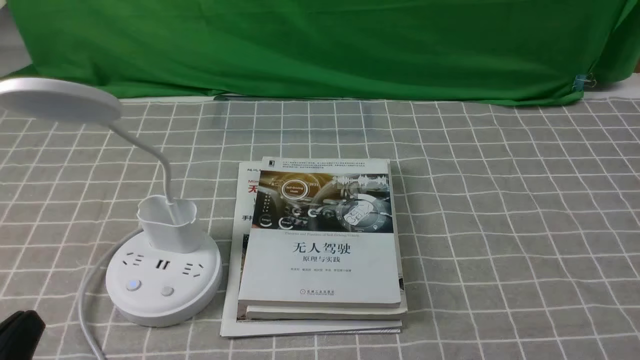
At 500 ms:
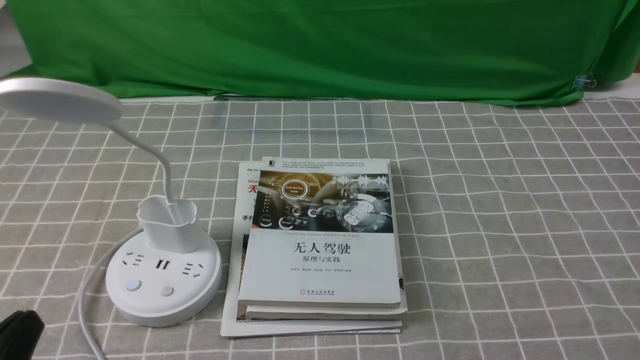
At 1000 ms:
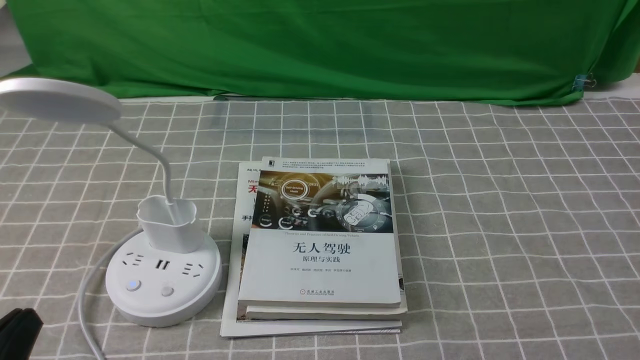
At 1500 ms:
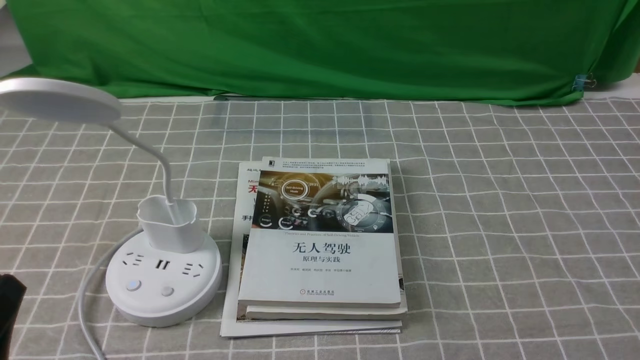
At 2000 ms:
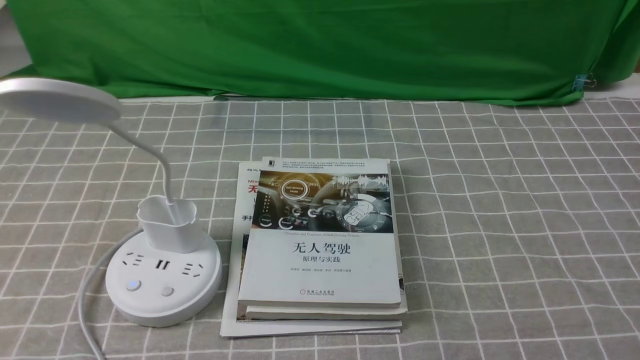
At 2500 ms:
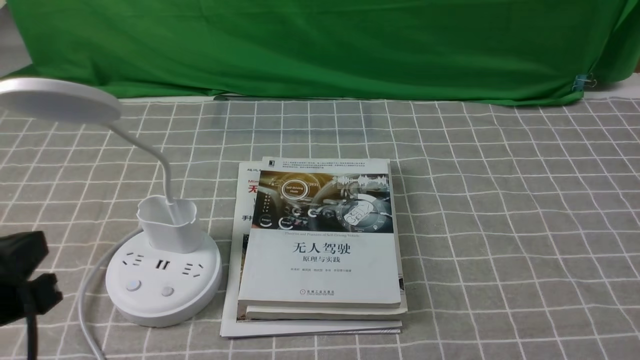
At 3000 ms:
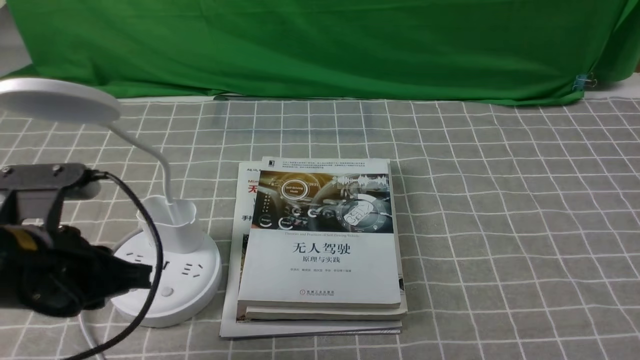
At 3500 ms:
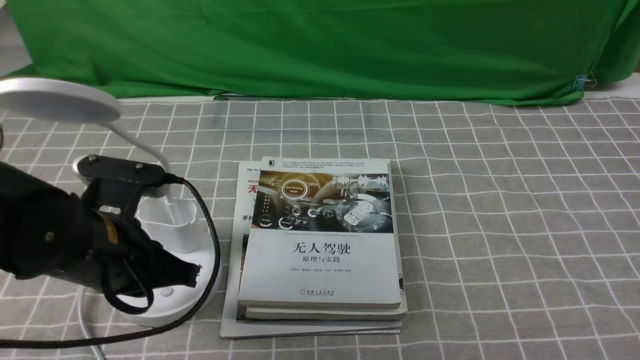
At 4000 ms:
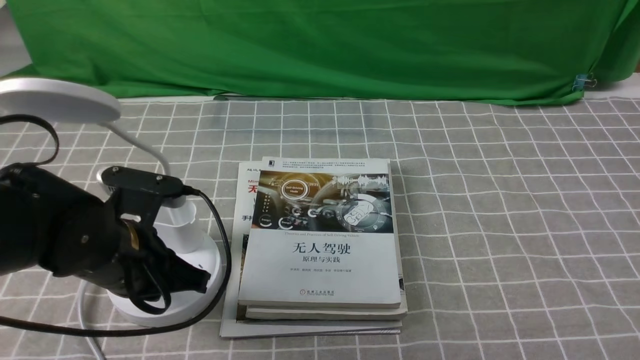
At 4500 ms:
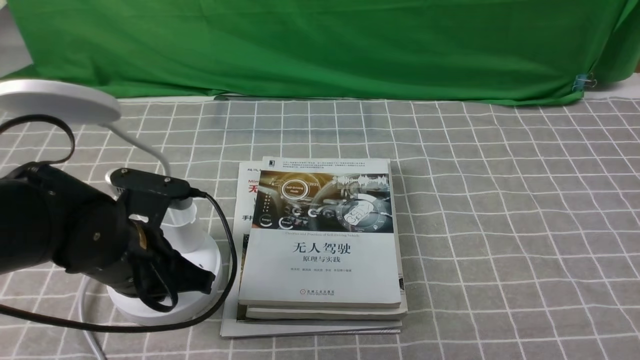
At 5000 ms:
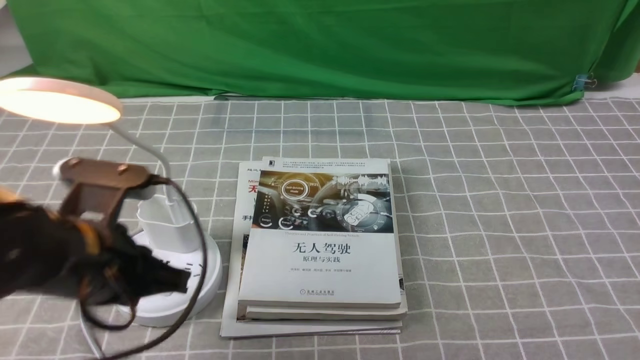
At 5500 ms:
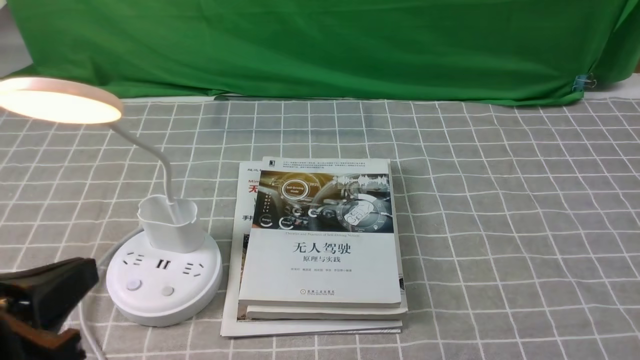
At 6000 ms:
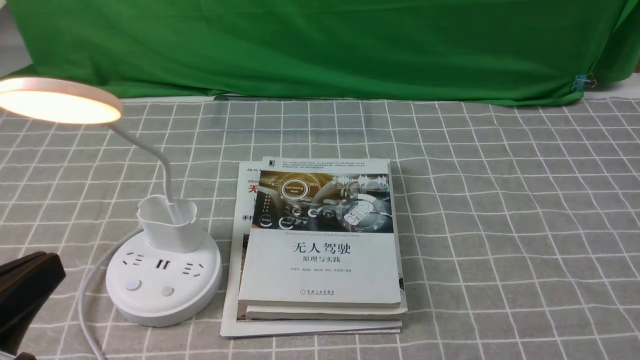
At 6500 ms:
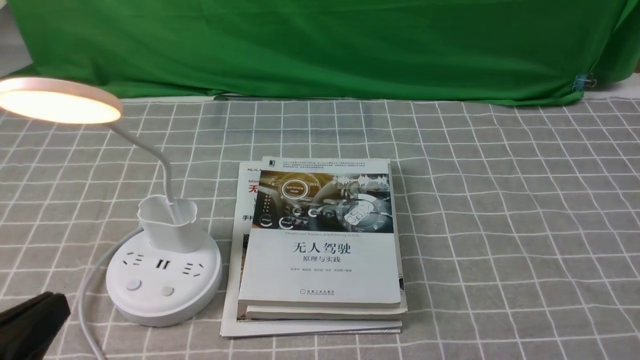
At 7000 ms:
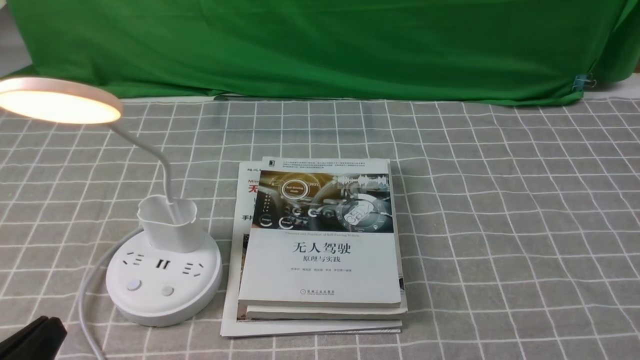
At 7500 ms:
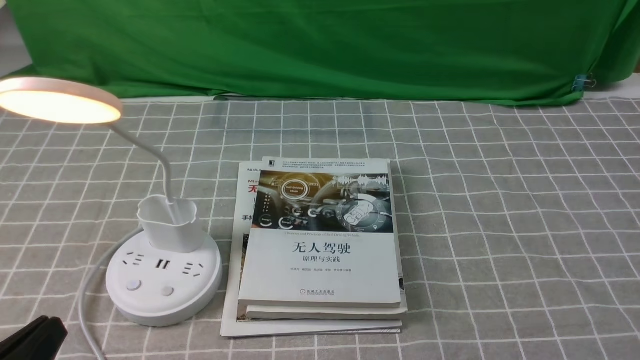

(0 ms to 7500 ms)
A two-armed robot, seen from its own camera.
Step, 0 ms - 5000 ms: use the left arm to press the button switch on the lamp holder.
2000 ms - 4000 ms: The left gripper travels forward by about 20 cm.
4000 ms - 5500 ms: The left gripper heads backward and upward, covering about 15 cm.
5500 ms - 7500 ms: The left gripper heads downward and backward, covering about 10 cm, and opens its fingers.
